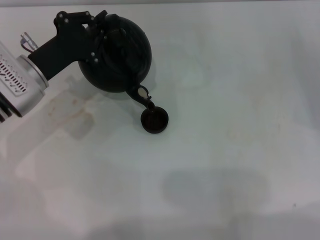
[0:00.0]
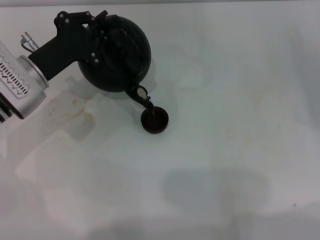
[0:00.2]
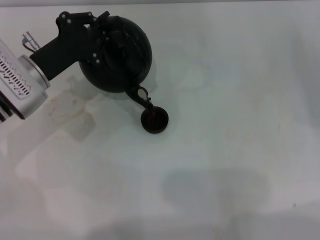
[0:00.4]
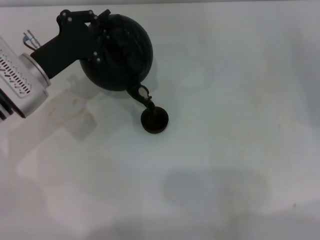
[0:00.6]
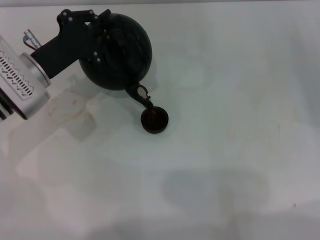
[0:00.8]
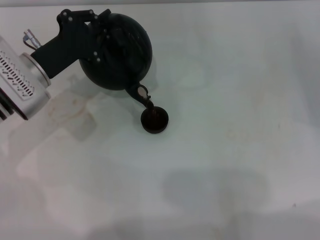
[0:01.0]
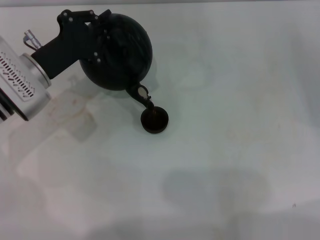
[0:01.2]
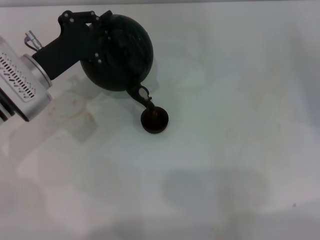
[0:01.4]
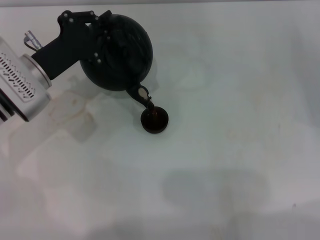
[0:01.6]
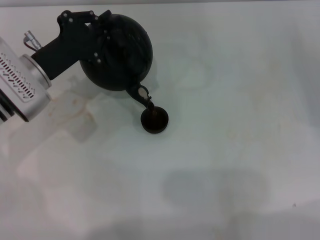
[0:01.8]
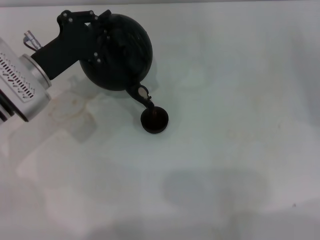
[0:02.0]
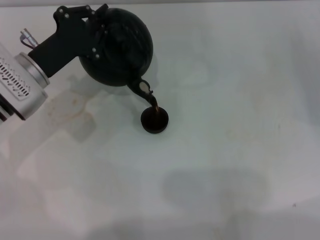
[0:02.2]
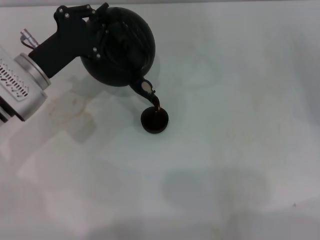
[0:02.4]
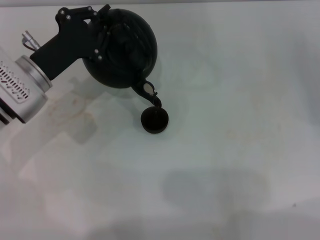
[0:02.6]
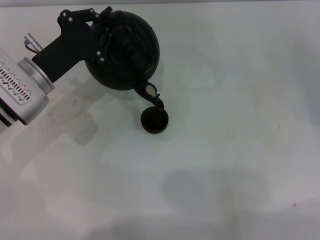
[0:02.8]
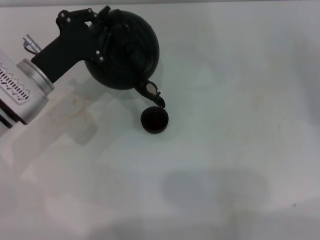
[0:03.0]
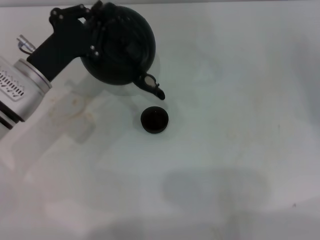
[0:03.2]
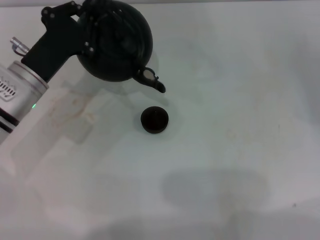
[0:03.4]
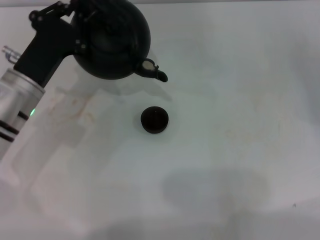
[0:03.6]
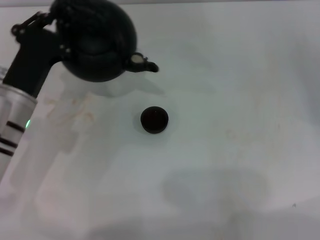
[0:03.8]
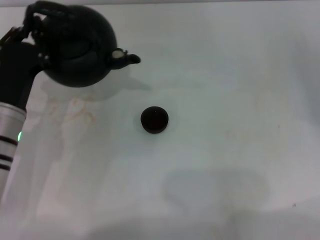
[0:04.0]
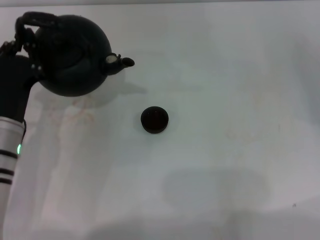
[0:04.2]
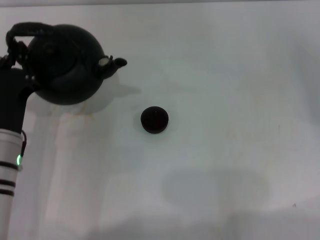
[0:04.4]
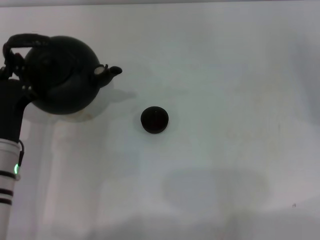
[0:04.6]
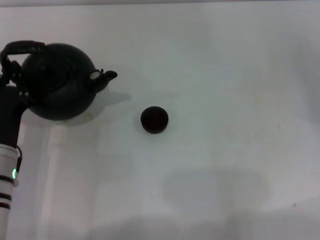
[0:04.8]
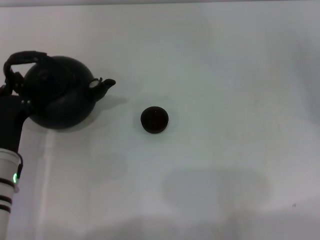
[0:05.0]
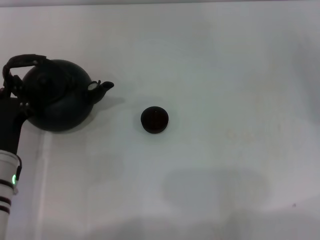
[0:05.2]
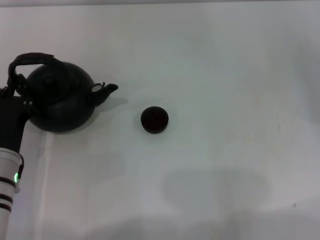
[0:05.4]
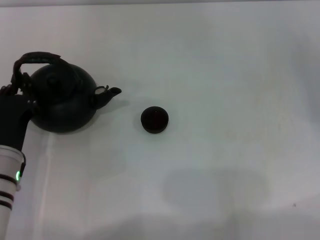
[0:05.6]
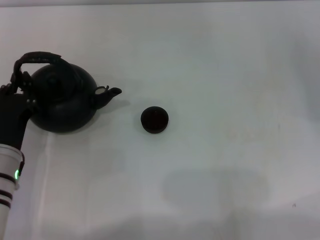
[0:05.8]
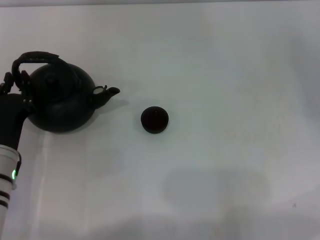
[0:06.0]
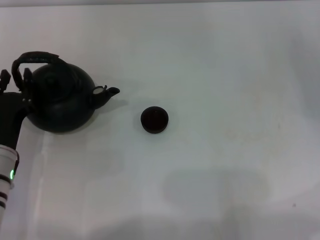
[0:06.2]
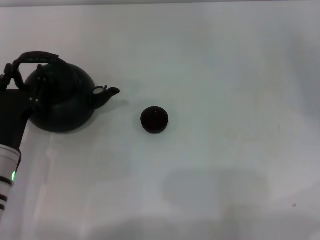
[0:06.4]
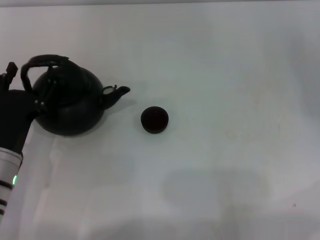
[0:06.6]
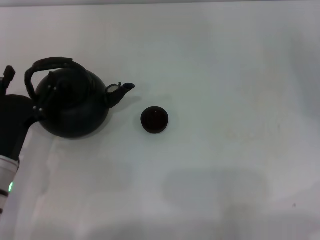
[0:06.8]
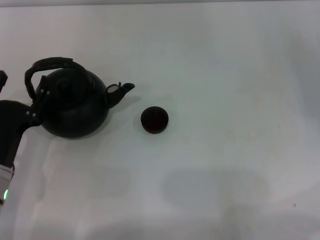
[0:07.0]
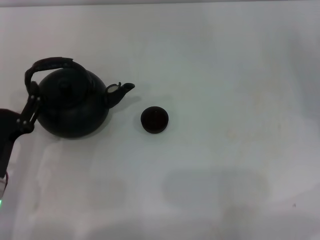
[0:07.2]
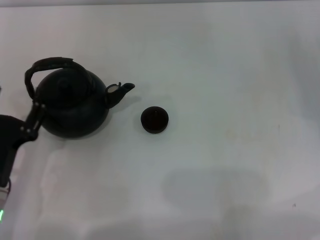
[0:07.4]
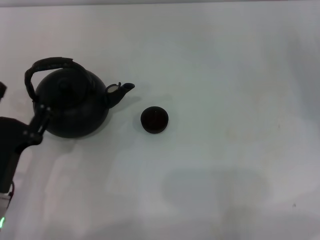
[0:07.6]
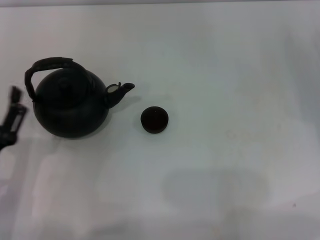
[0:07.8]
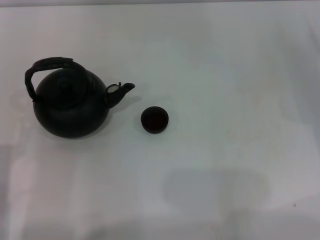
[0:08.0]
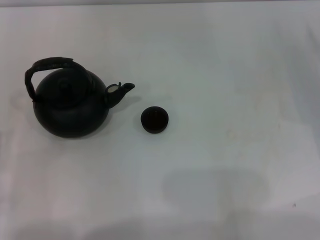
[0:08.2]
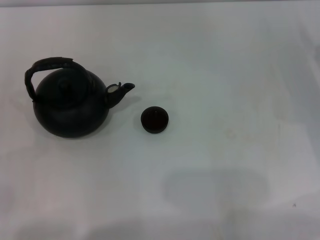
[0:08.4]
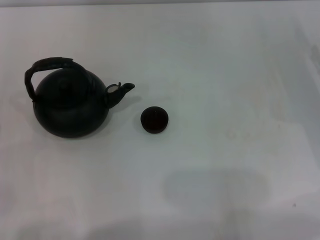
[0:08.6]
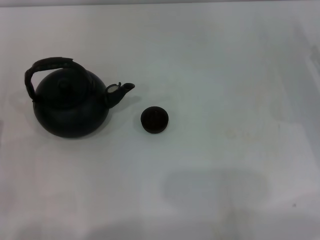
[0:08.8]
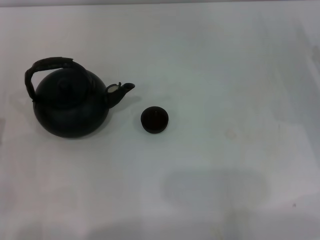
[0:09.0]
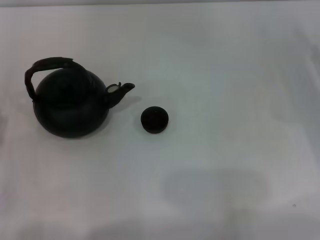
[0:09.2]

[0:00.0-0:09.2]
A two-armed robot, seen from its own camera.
Task of the whole recording: Grasp the handle of the teapot with one hand and pour tea into the teacup.
Step, 0:00.0 to 0:03.6: Pour tea into the teacup with the left gripper.
Step, 0:03.8 to 0:07.0: Put down the teapot with the left gripper.
0:00.0 to 0:03.0: There are only small adjustments of the grippers.
0:03.0 to 0:04.6: The left gripper goes approximately 10 cm backward.
0:04.6 to 0:06.2: The grippers stay close to where they were, moving slightly.
0:06.2 to 0:07.6: The left gripper is displaced backward by about 5 cm, and opens.
0:07.6 to 0:09.2: The left gripper is displaced to the left by approximately 5 cm.
